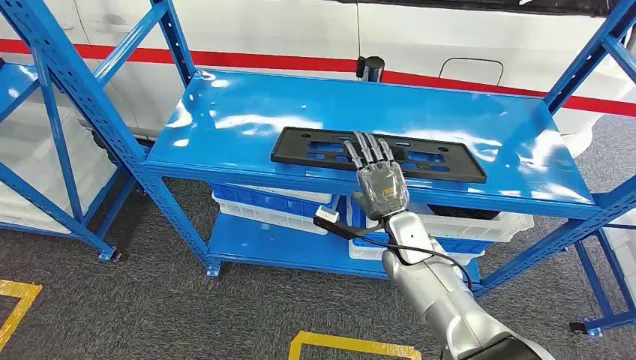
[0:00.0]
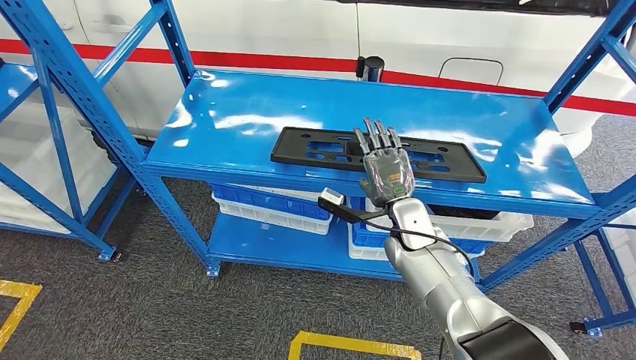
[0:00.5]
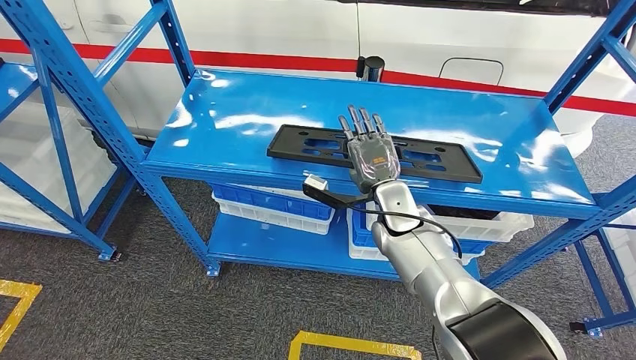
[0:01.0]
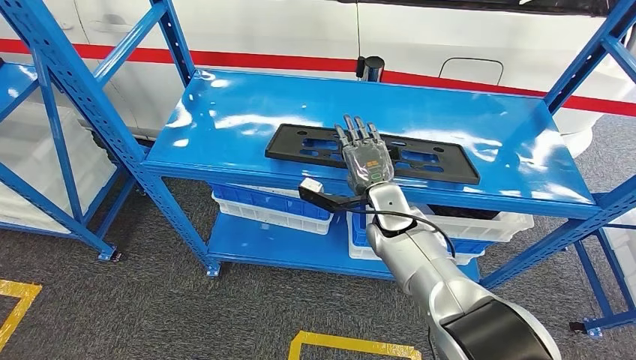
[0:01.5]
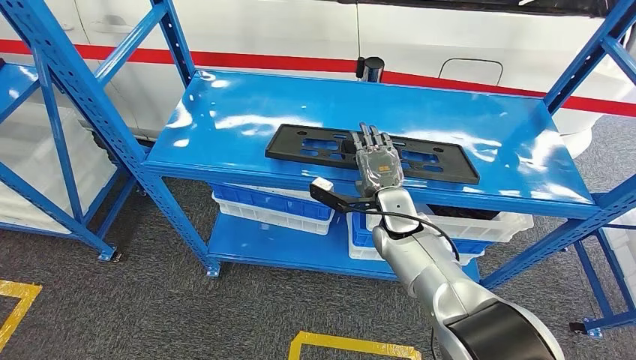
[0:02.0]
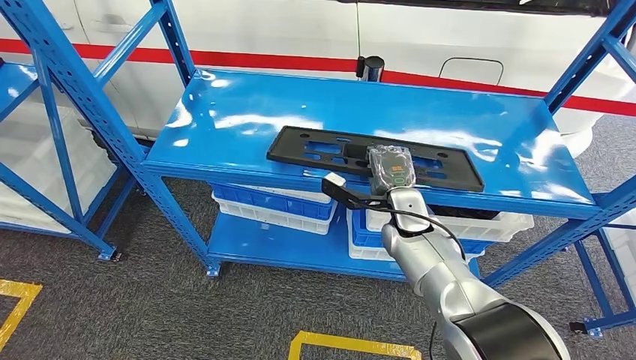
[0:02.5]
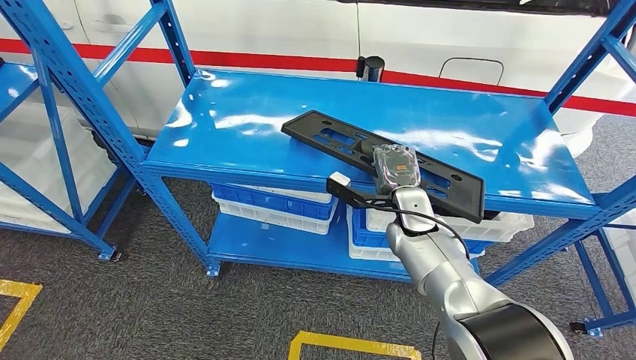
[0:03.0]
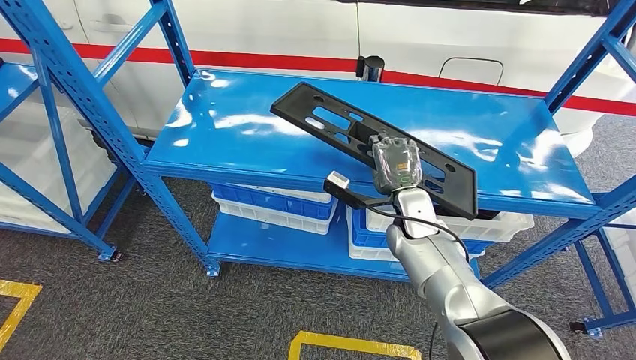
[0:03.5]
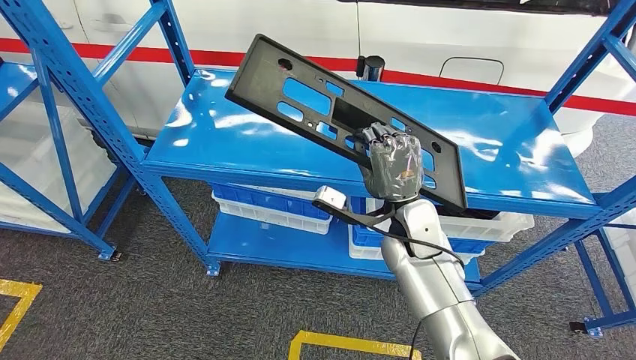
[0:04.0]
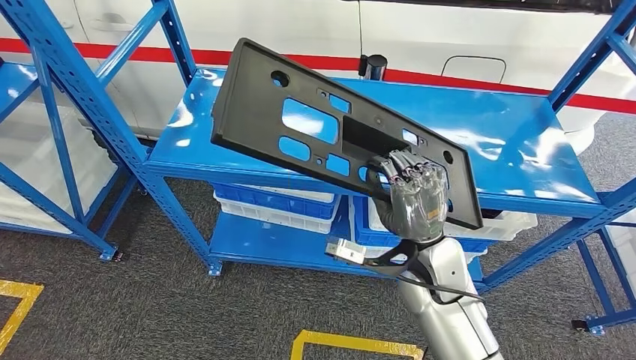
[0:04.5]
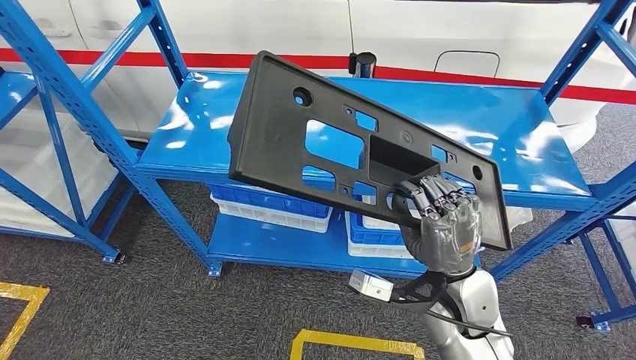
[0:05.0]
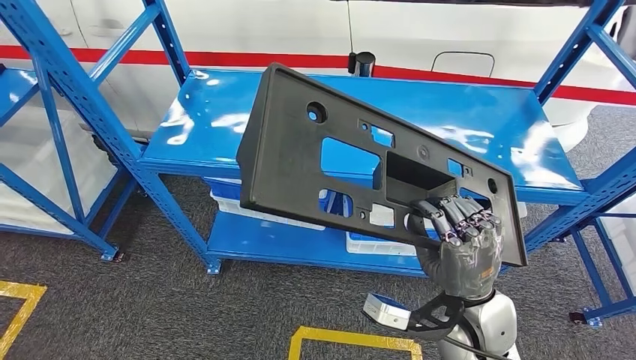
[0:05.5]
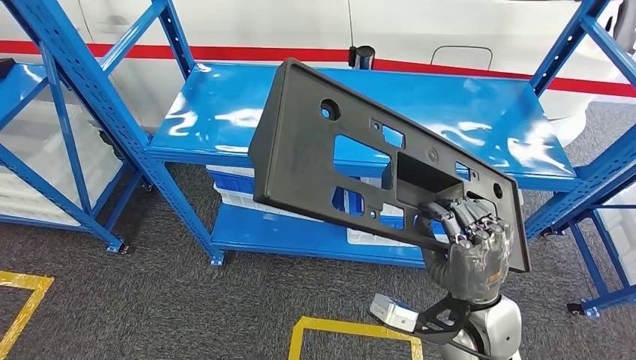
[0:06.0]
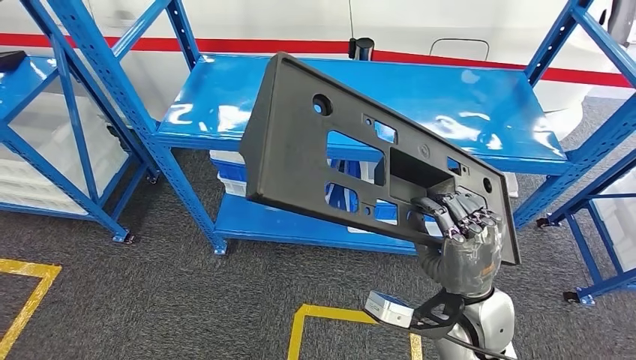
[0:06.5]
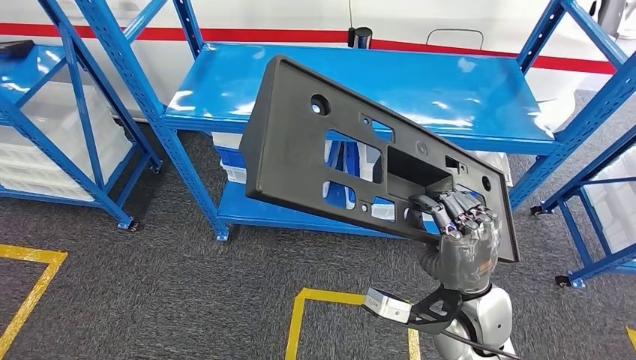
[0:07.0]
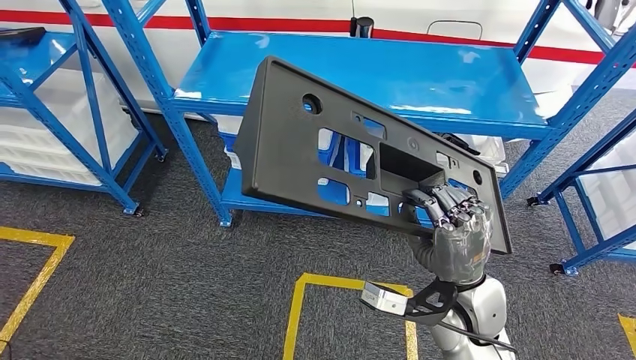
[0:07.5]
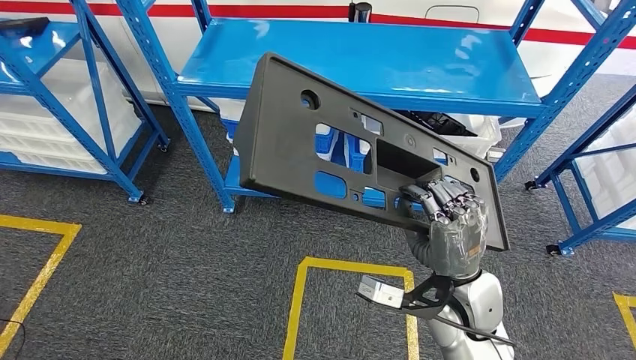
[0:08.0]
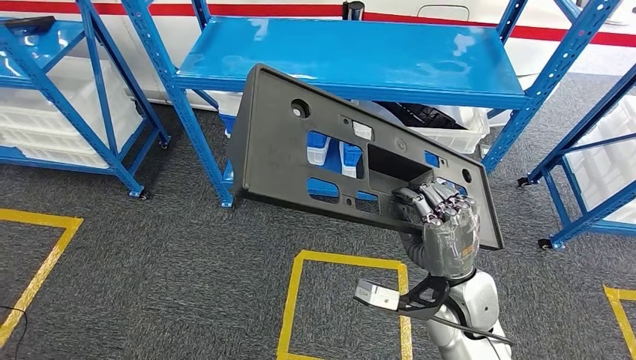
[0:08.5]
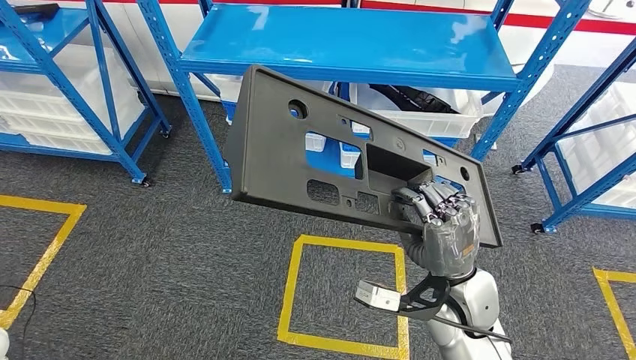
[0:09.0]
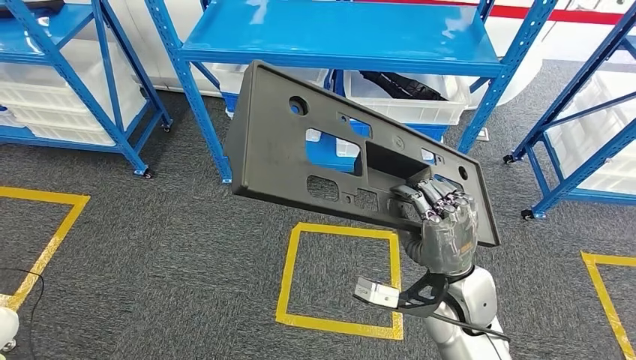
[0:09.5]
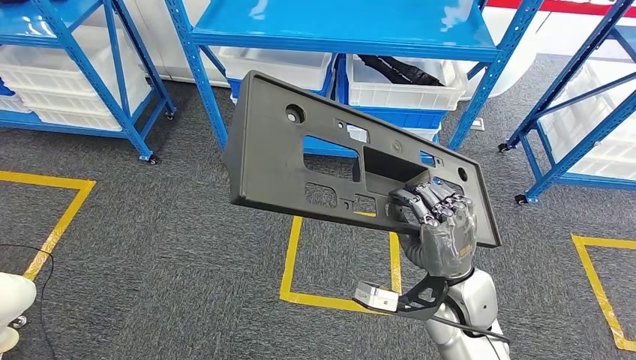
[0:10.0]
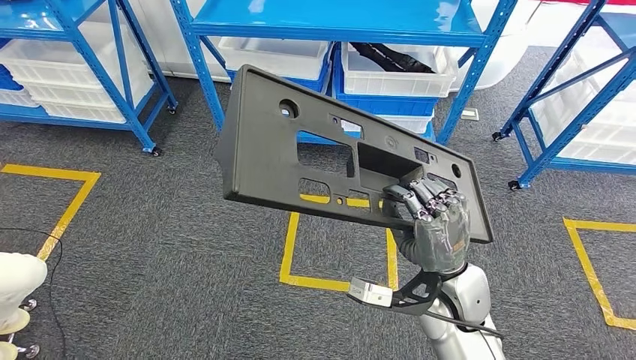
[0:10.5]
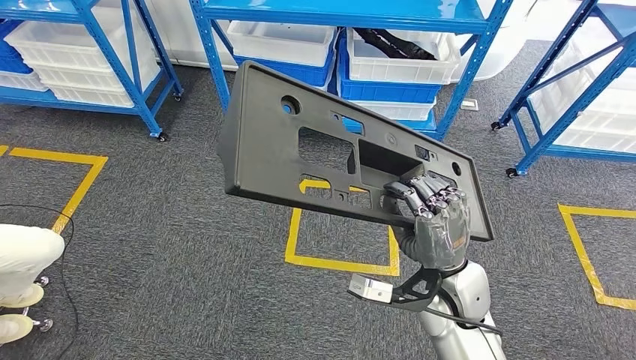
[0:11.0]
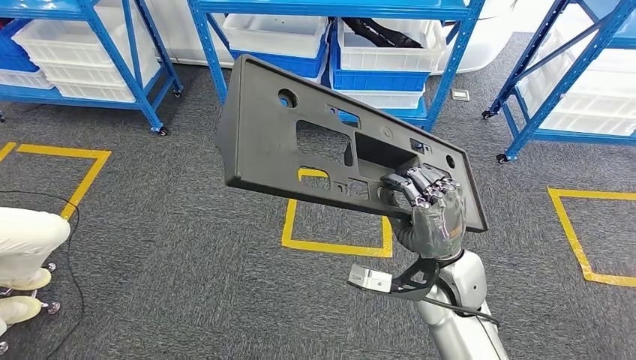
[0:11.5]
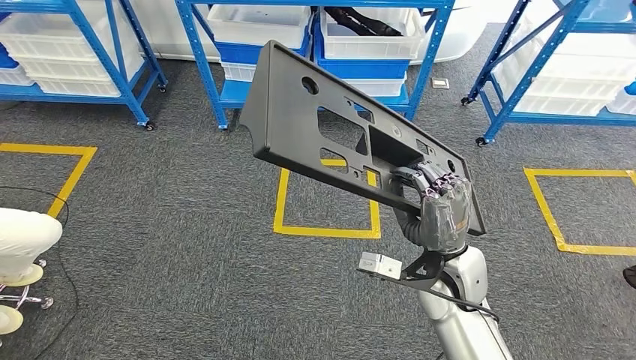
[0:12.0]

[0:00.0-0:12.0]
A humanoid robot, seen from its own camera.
Step, 0:00.0 to 0:06.0: Pick up the large material from the shelf.
0:02.0 to 0:04.0: The right hand shifts by about 5 cm.

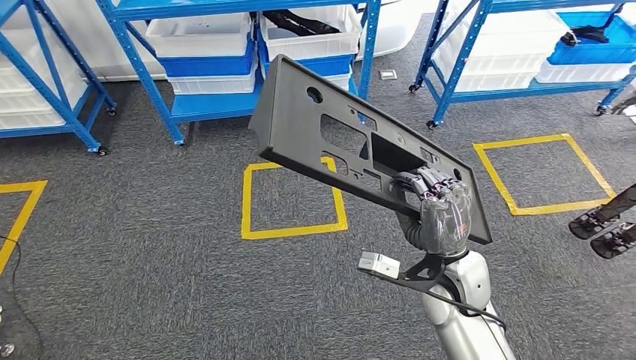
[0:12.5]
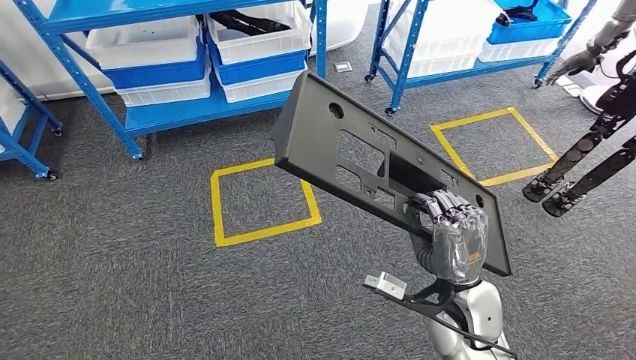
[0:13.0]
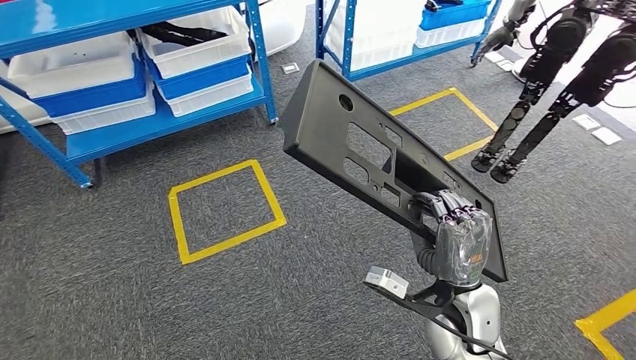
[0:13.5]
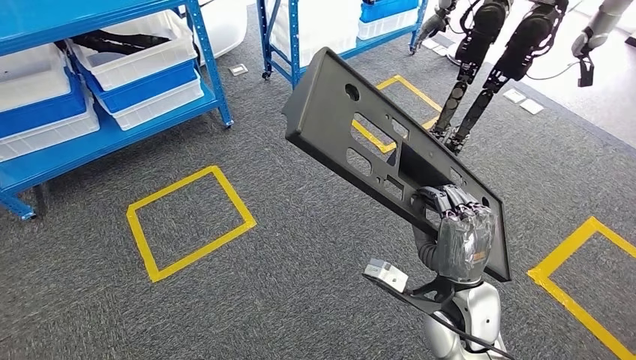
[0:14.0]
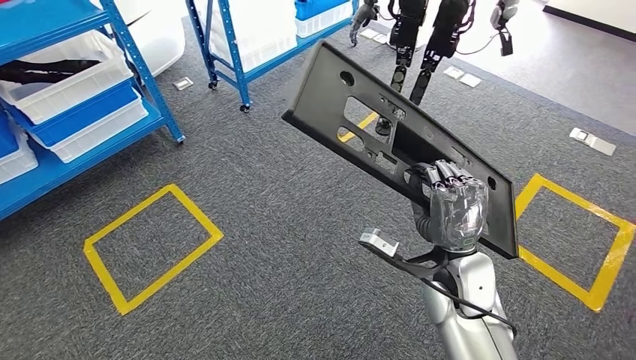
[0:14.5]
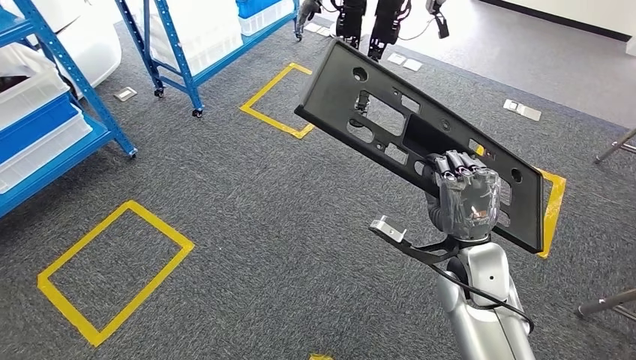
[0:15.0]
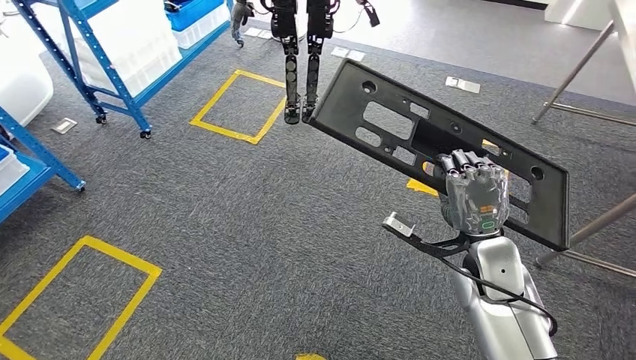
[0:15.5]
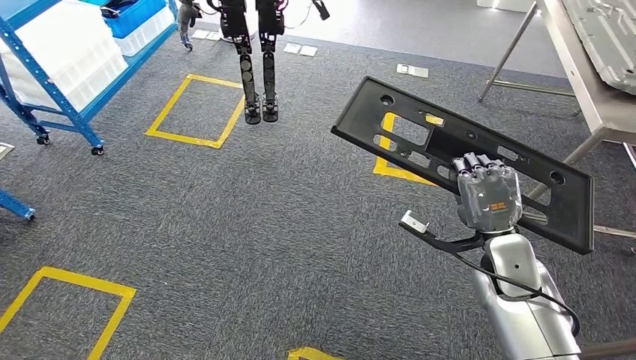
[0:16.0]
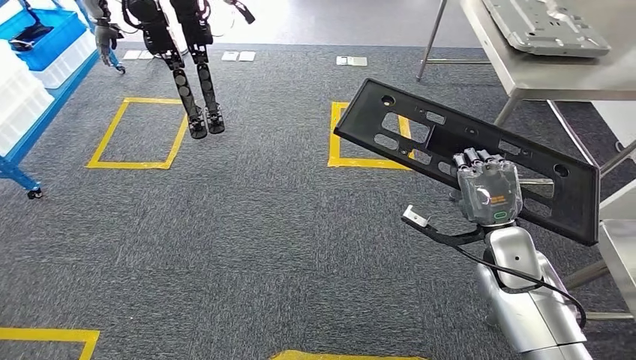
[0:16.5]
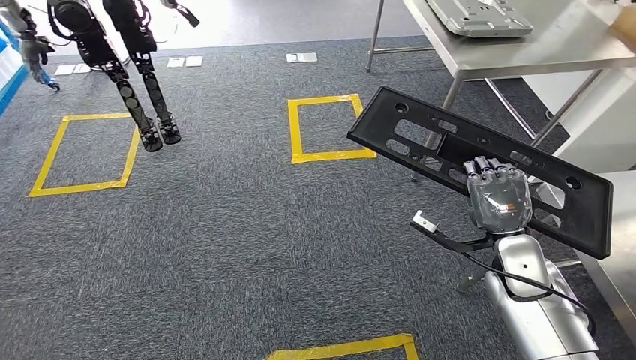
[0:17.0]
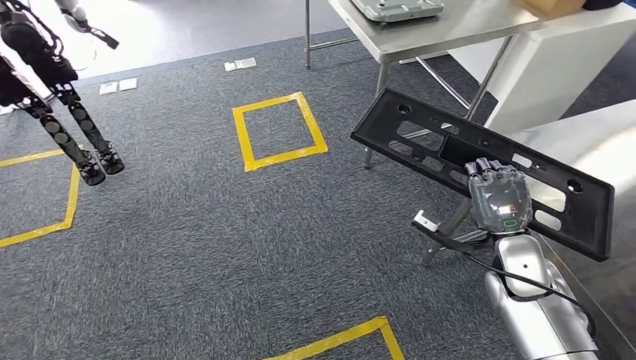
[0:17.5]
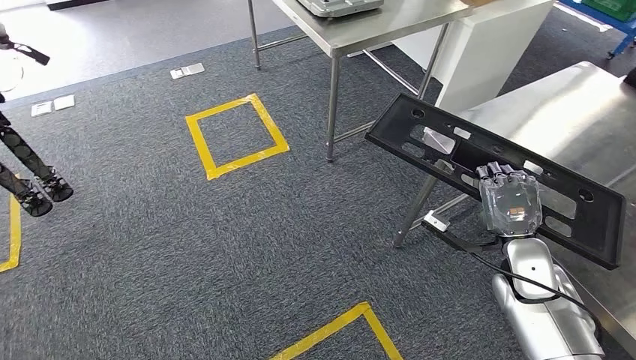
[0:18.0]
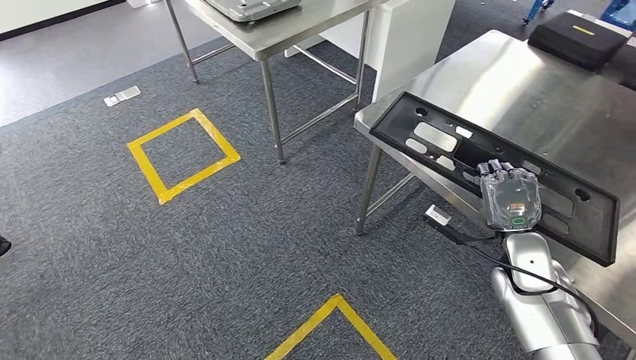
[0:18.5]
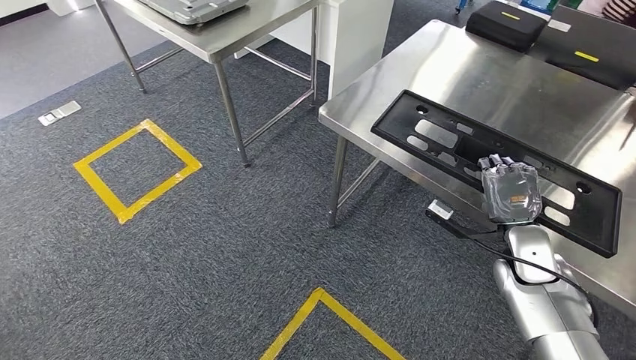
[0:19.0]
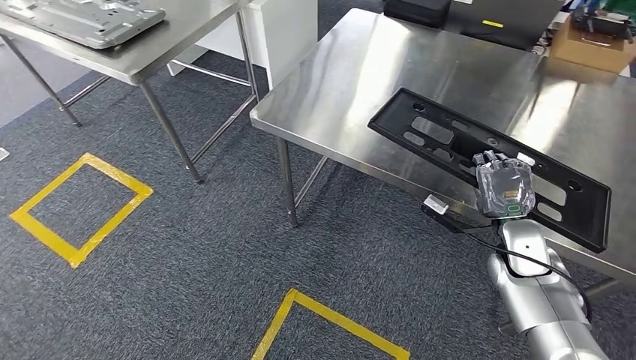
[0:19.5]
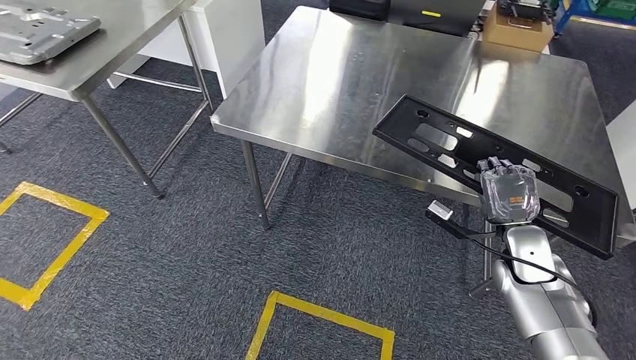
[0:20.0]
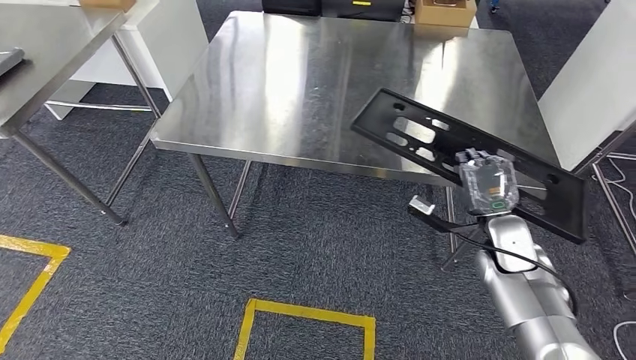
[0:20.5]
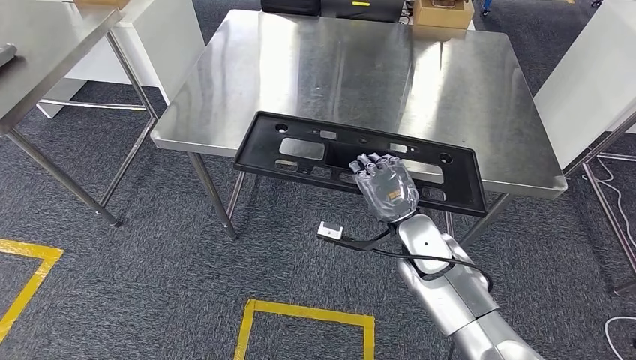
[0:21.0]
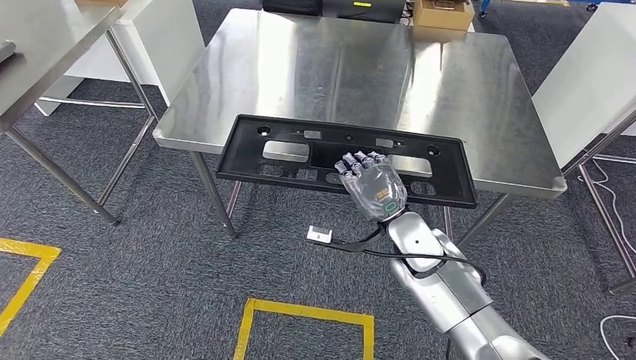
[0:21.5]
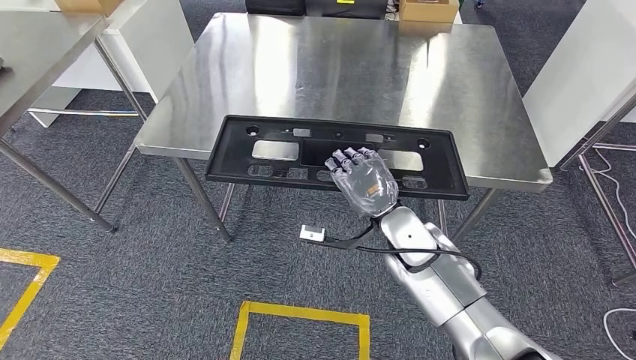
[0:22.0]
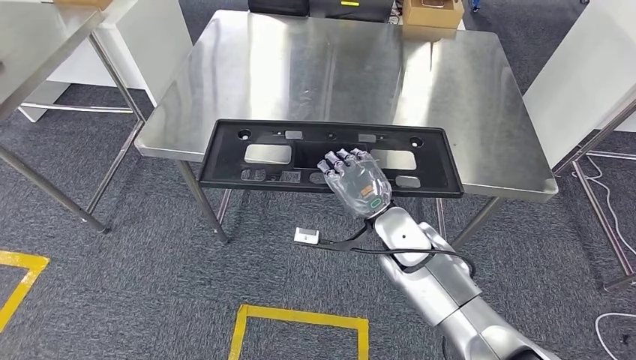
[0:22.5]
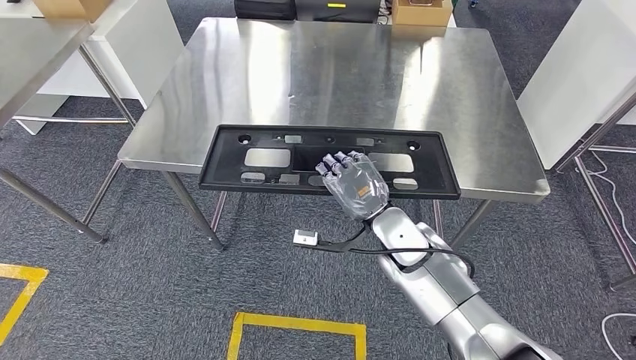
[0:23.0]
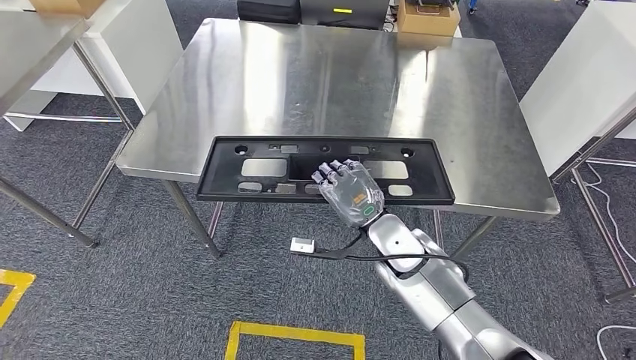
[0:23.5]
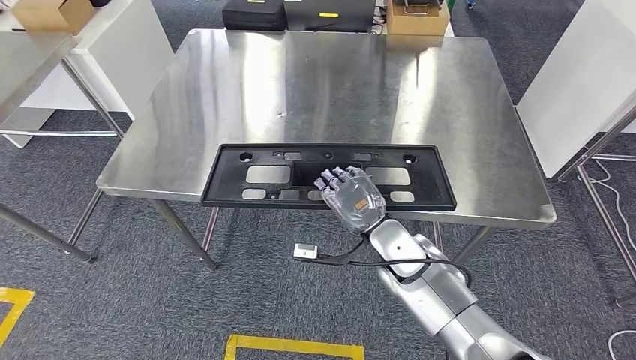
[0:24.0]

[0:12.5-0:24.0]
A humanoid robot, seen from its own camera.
Step, 0:12.5 to 0:20.0: Move the large material to the workbench.
